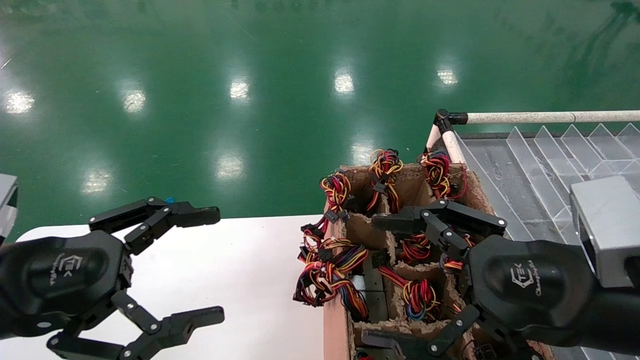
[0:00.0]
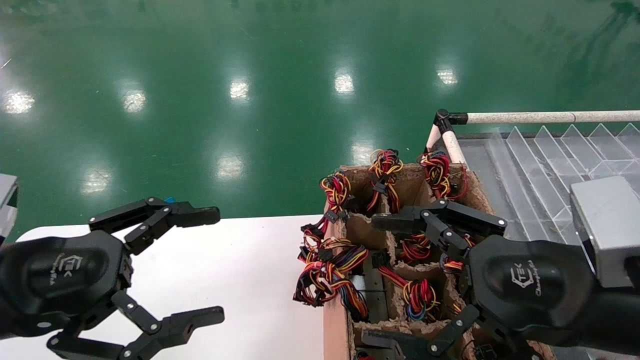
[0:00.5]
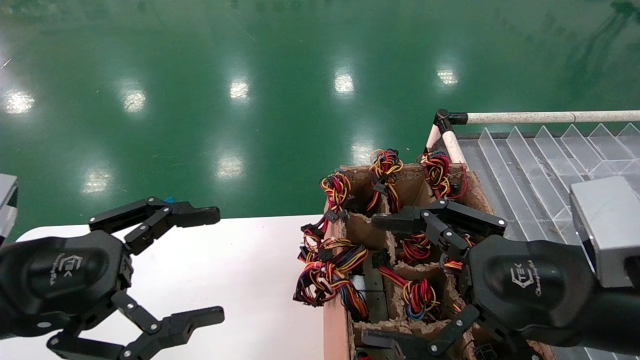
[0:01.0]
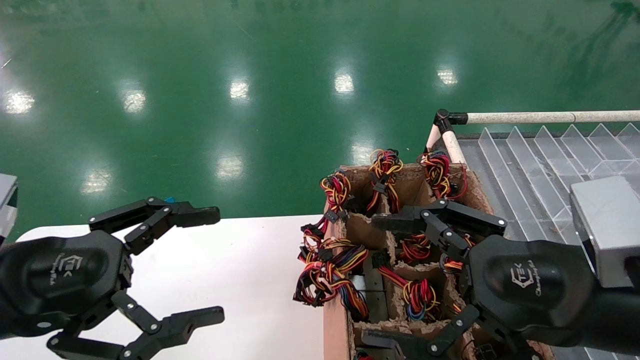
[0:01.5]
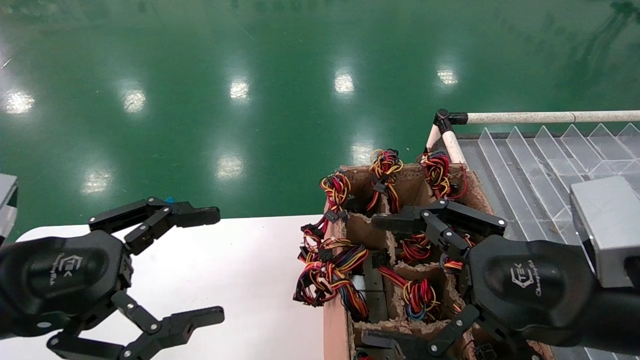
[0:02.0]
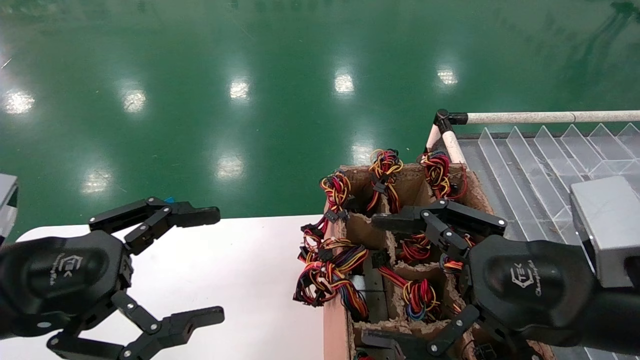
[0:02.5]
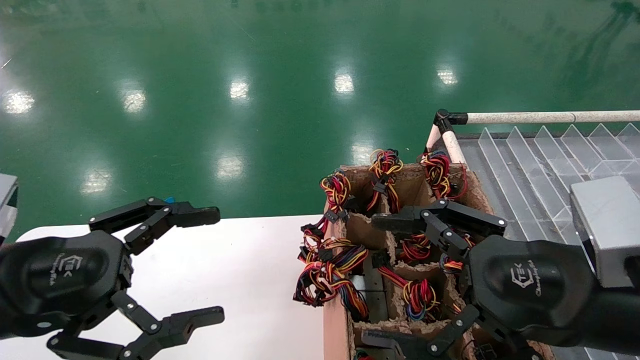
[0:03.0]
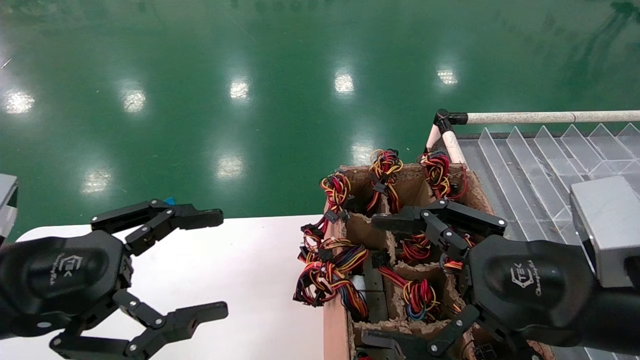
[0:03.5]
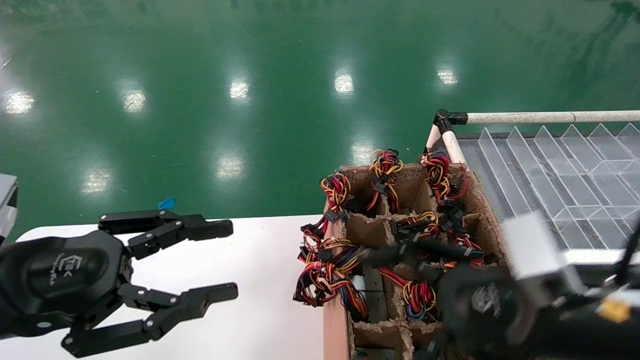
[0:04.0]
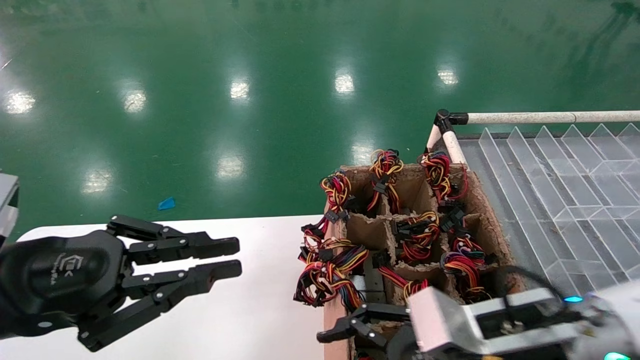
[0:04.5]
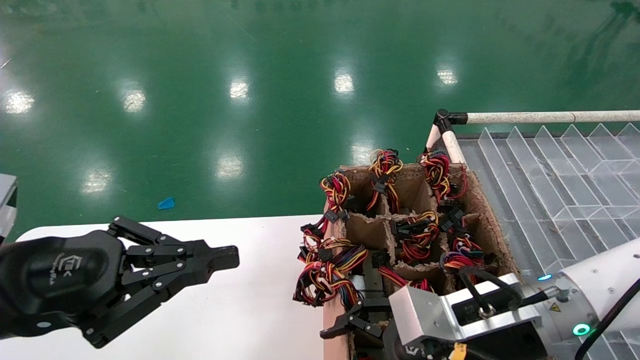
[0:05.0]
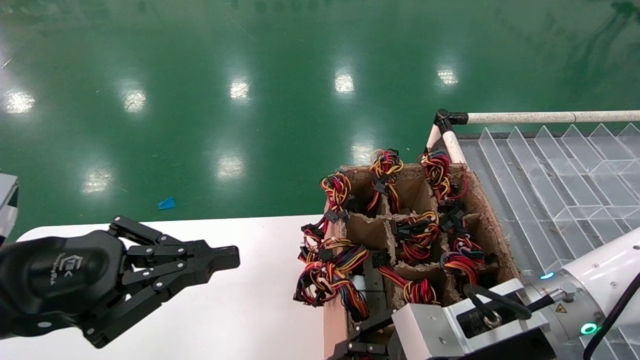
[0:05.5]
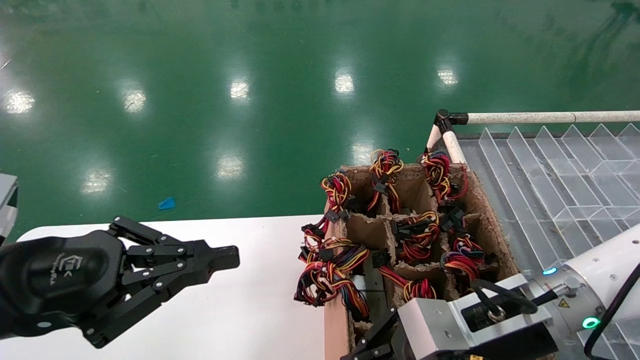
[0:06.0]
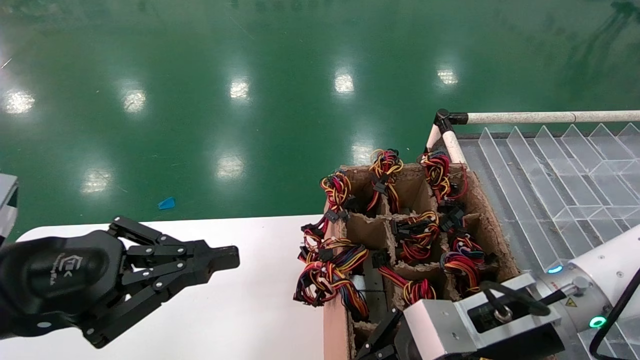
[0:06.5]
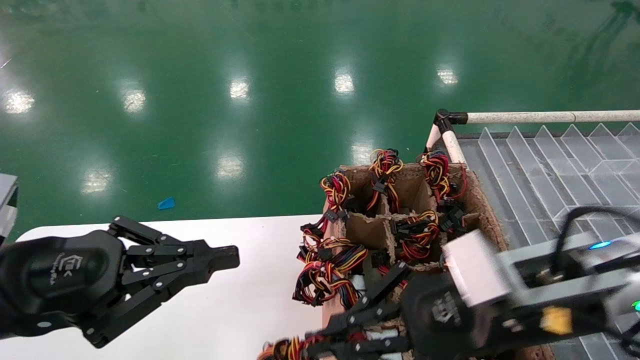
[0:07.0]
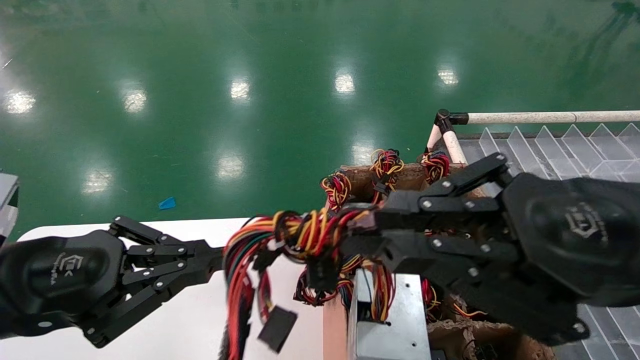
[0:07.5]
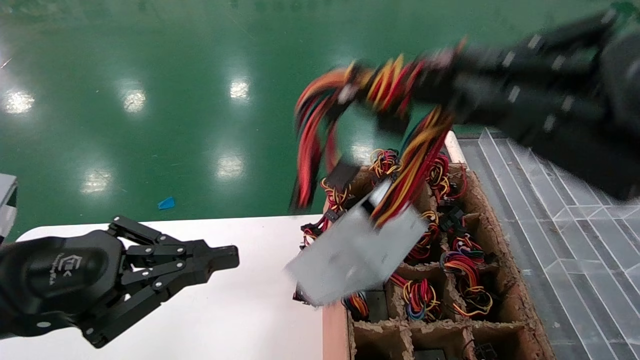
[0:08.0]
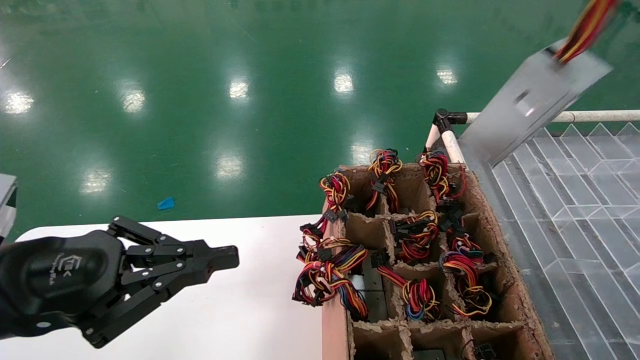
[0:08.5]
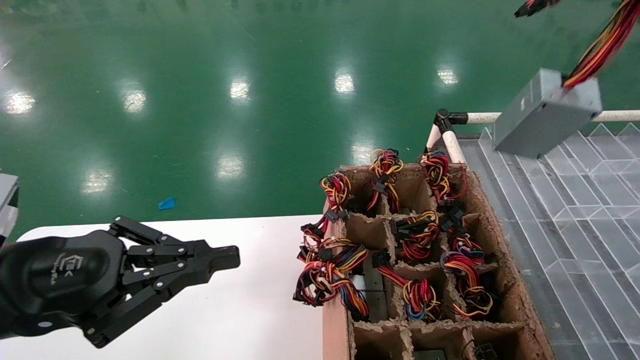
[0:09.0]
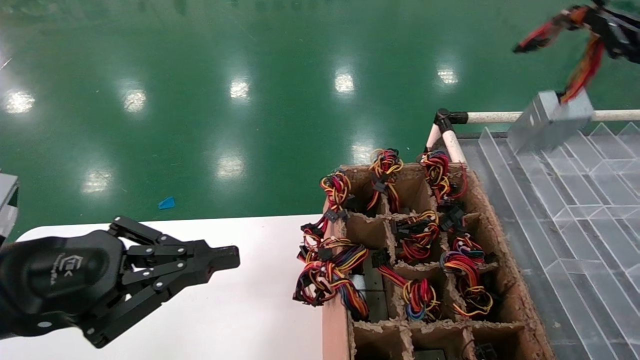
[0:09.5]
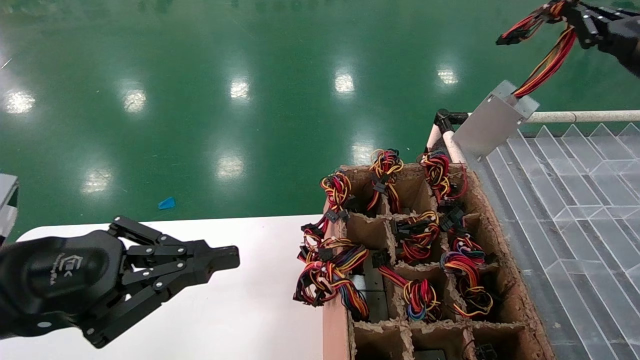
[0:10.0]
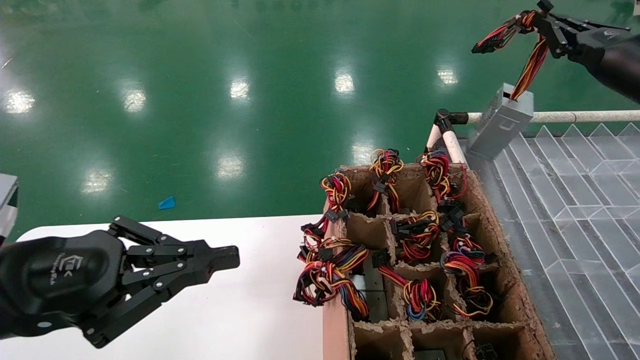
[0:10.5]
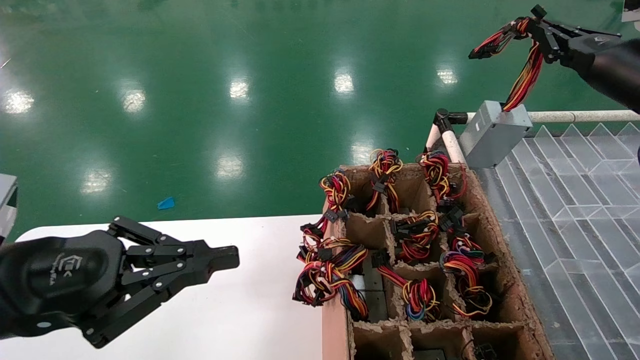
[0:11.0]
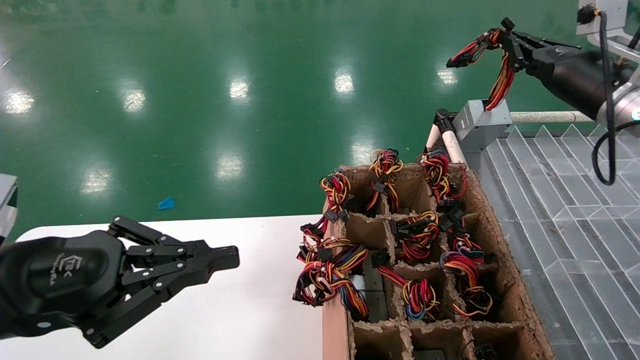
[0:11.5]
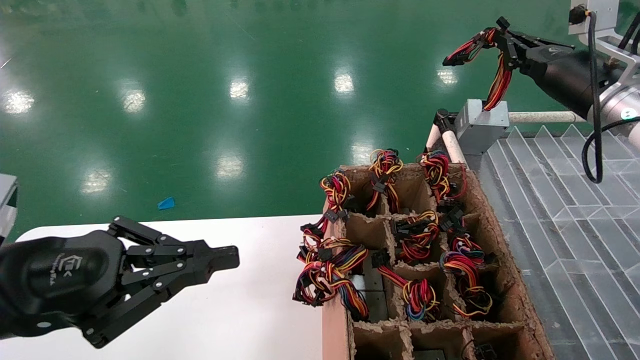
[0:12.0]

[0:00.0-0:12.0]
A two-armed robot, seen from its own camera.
Step, 0:04.0 to 0:06.5: Grab the main unit power supply from the containment box.
0:00.0 to 0:02.0: Both grippers stay put.
0:02.0 to 0:04.0: There are only small adjustments of the grippers.
0:04.0 to 0:06.0: The left gripper closes up. The right gripper goes roughly 5 cm forward, and closes its fingers.
0:06.0 to 0:08.0: The right gripper is displaced upward, backward and to the right by roughly 25 cm.
0:08.0 to 0:10.0: The right gripper shifts about 25 cm forward and to the right.
0:10.0 to 0:12.0: The right gripper is displaced to the left and forward by roughly 10 cm.

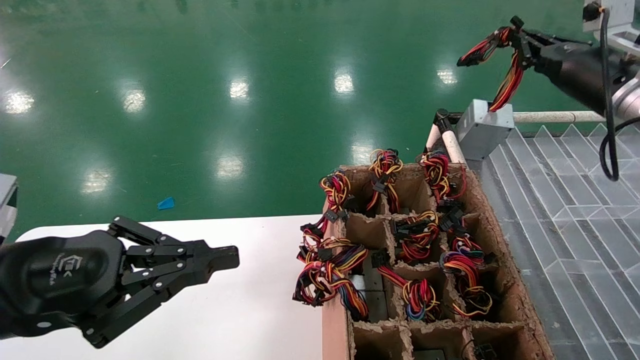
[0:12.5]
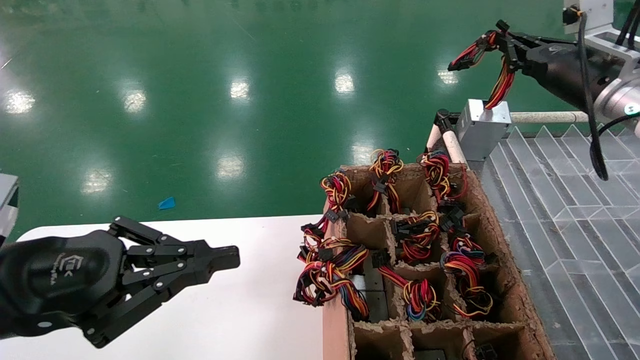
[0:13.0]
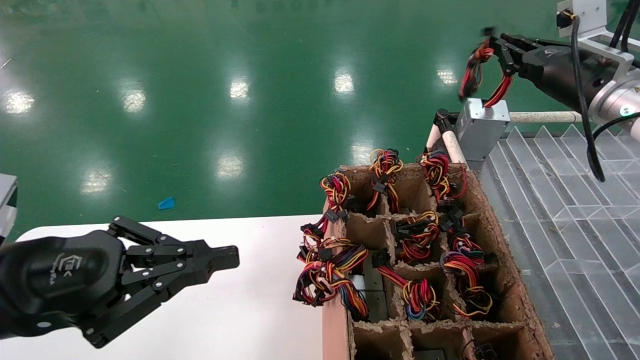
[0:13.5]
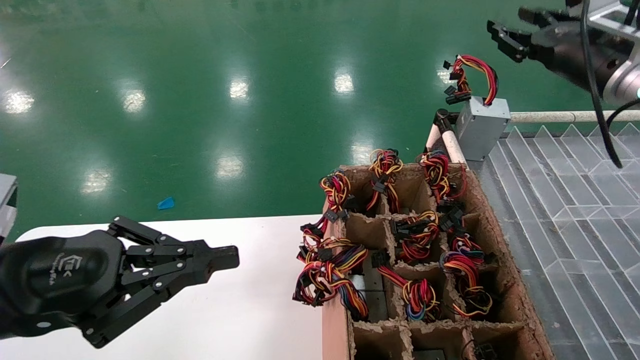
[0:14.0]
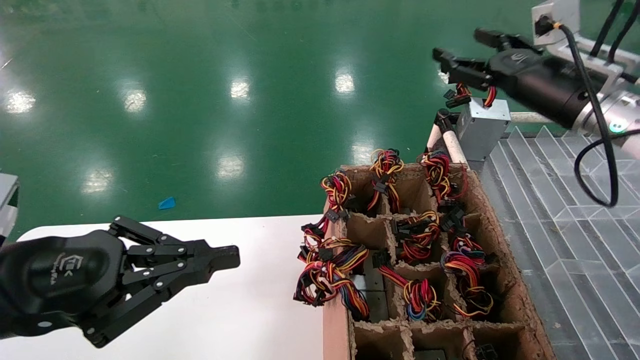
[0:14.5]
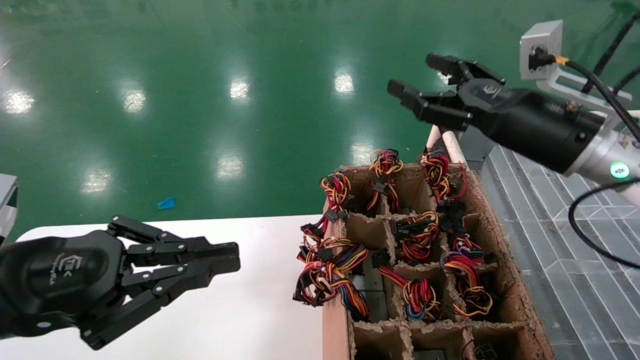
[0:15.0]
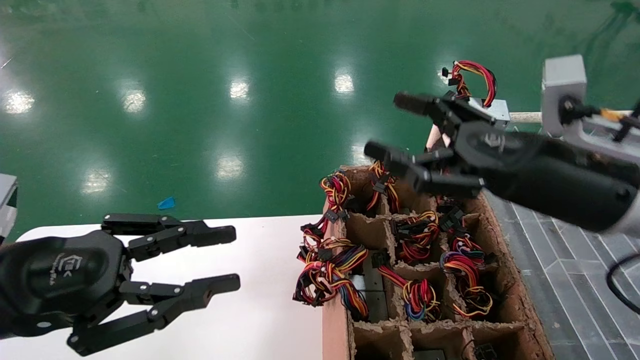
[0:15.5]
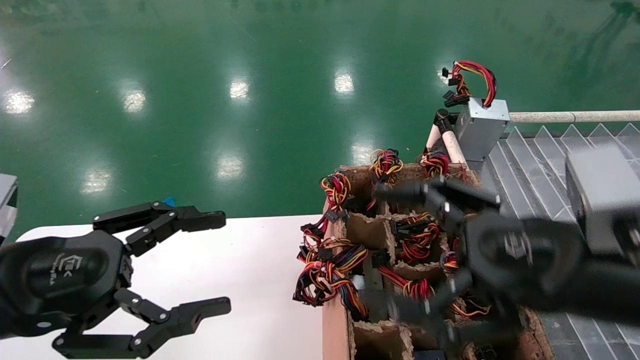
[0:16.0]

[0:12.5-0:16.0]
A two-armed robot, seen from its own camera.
0:12.5 to 0:14.5: The right gripper travels to the left by some 5 cm, and opens its fingers.
0:14.5 to 0:16.0: The left gripper opens, while the right gripper shifts some 20 cm backward and downward.

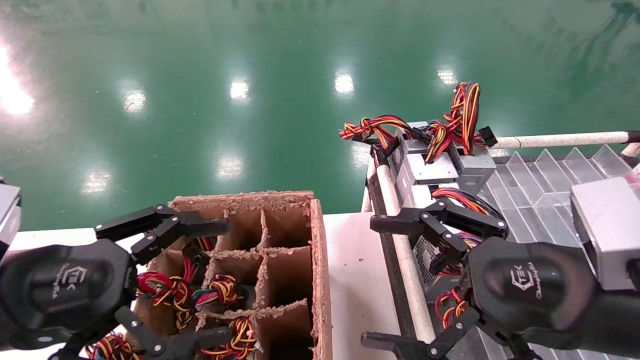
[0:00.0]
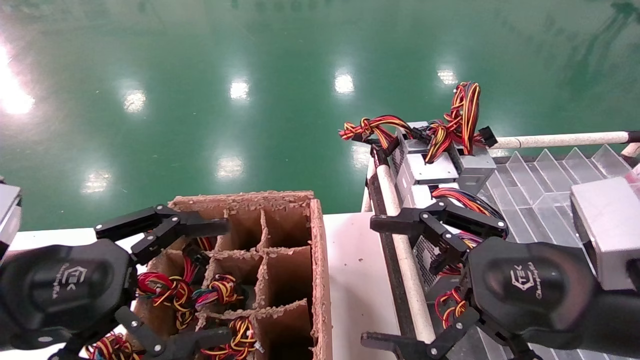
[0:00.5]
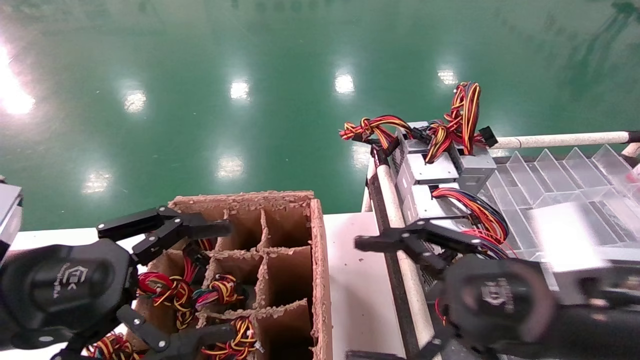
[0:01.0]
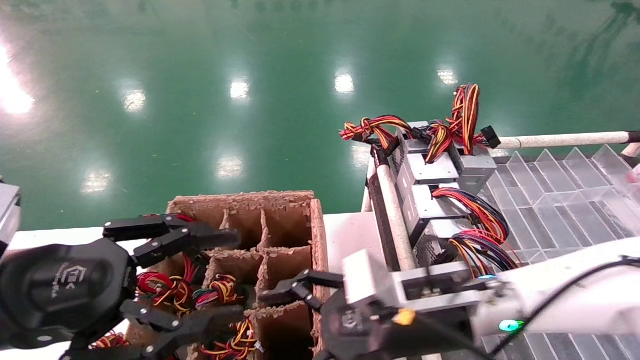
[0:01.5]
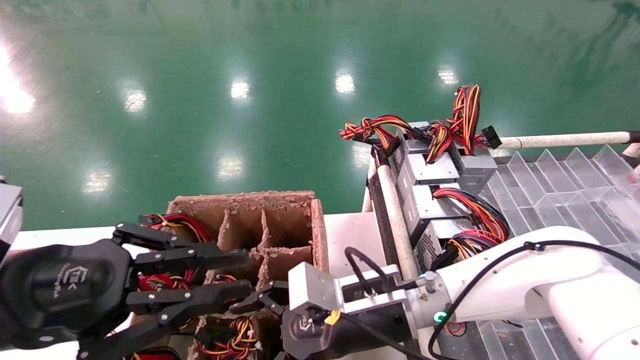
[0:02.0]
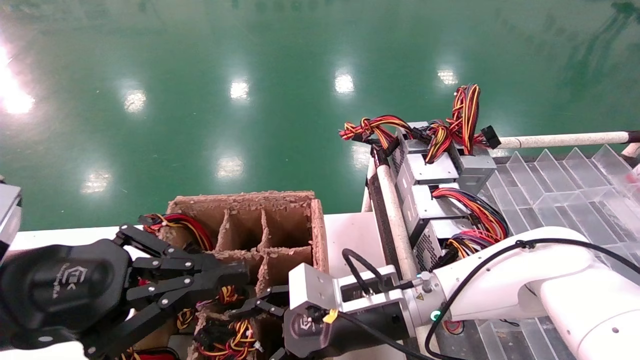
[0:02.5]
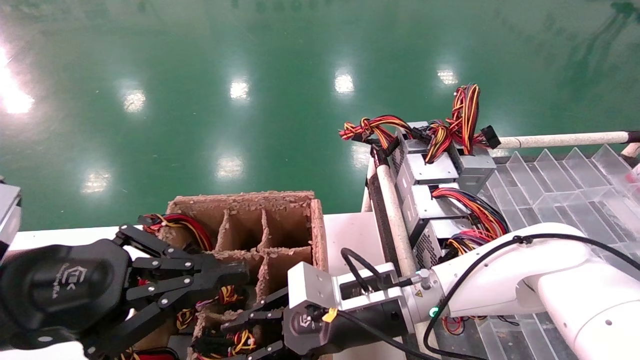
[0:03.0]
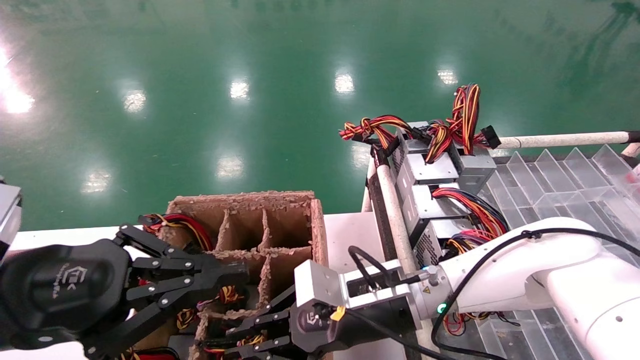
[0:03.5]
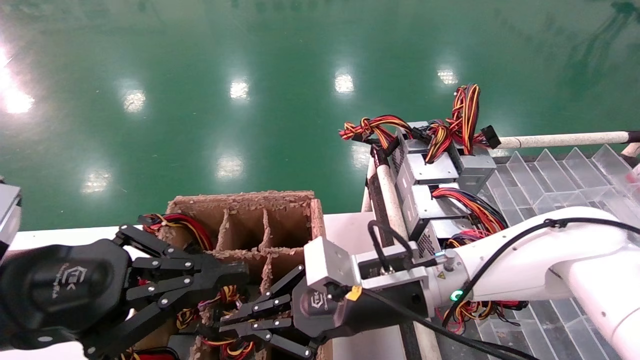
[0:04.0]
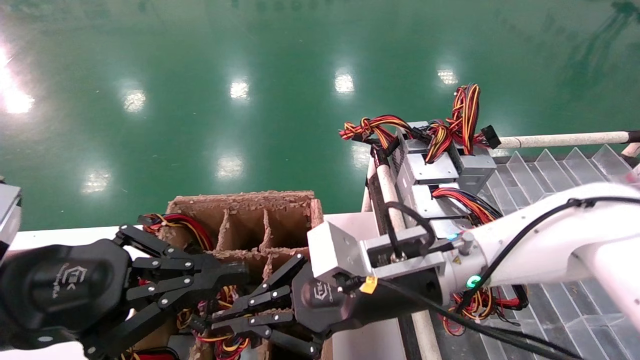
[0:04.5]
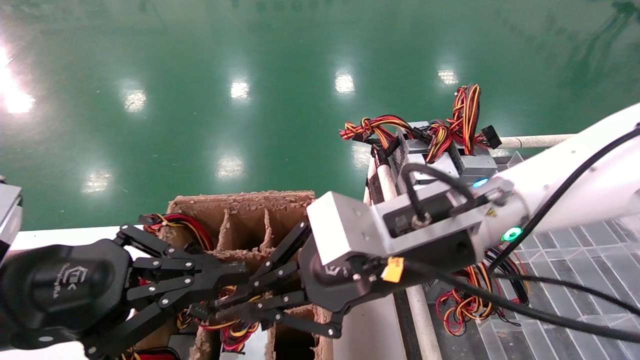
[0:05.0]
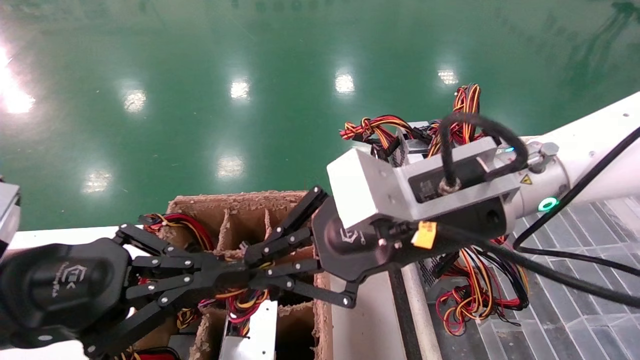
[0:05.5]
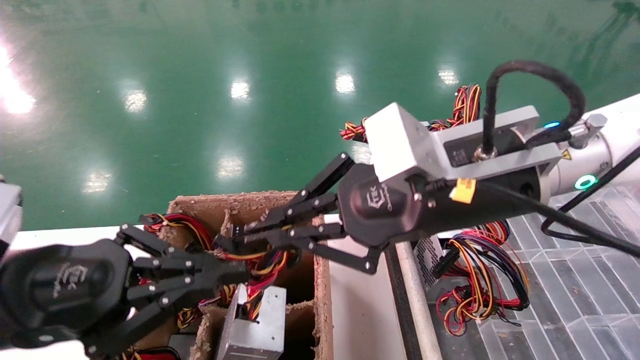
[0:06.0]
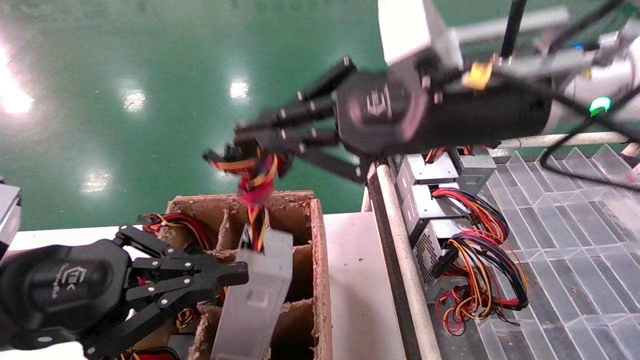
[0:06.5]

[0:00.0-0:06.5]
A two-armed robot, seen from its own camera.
Step, 0:01.5 to 0:04.0: Grab the main unit power supply from the containment box.
0:00.0 to 0:02.0: The right gripper moves to the left, forward and downward, about 25 cm, while the left gripper closes up.
0:02.0 to 0:04.5: The right gripper travels upward by about 5 cm, and closes.
0:04.5 to 0:06.5: The right gripper moves upward, roughly 20 cm.
